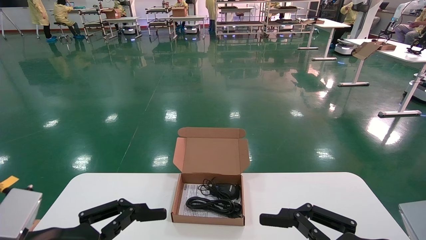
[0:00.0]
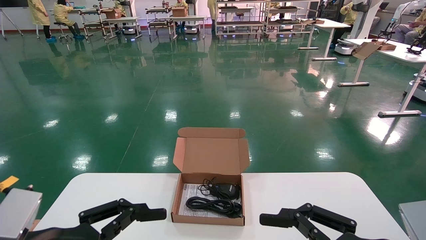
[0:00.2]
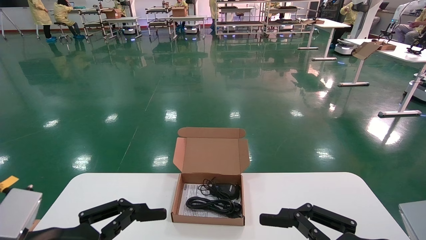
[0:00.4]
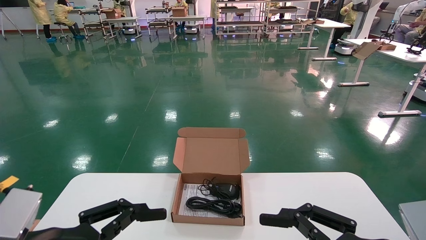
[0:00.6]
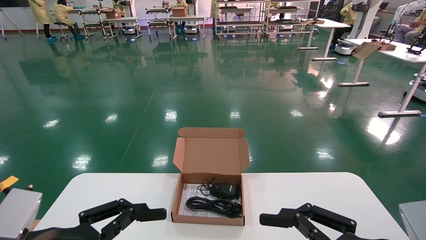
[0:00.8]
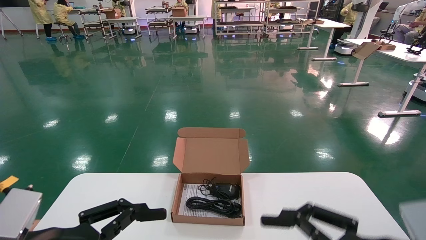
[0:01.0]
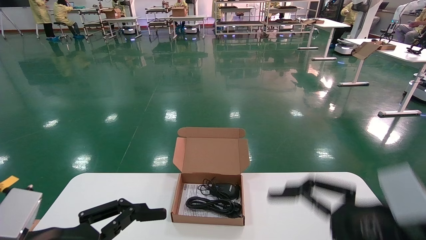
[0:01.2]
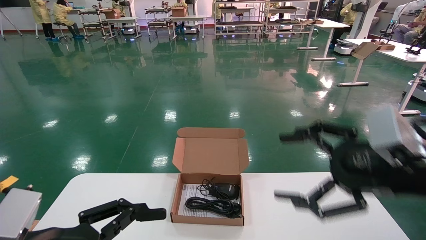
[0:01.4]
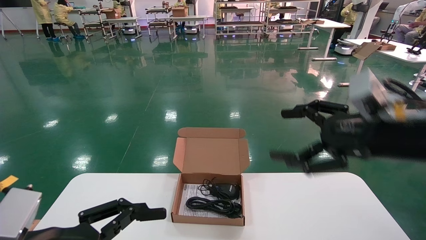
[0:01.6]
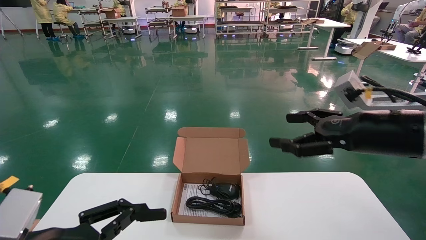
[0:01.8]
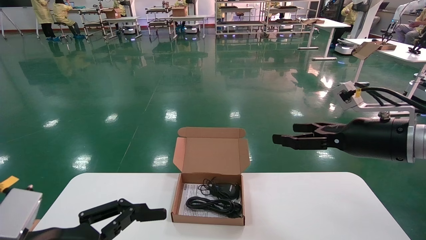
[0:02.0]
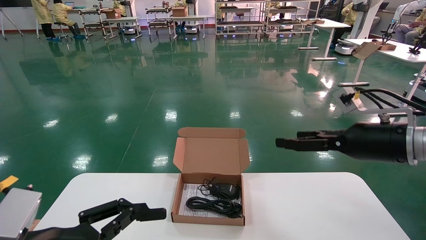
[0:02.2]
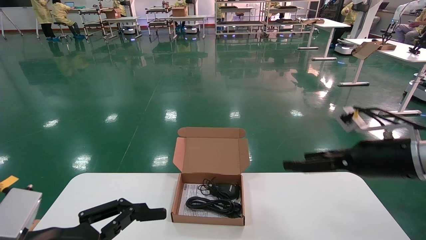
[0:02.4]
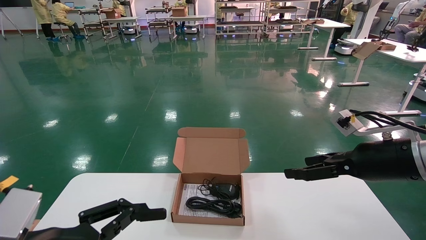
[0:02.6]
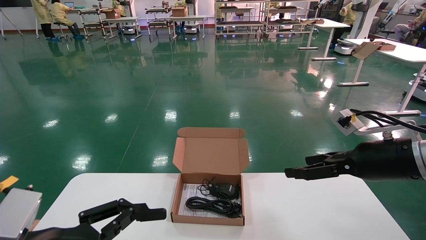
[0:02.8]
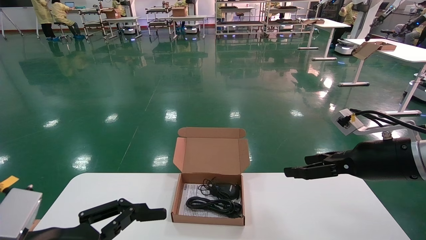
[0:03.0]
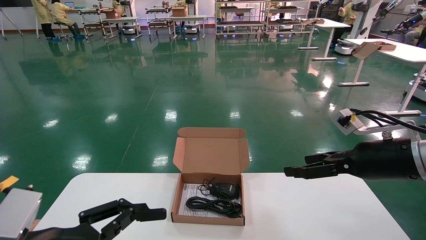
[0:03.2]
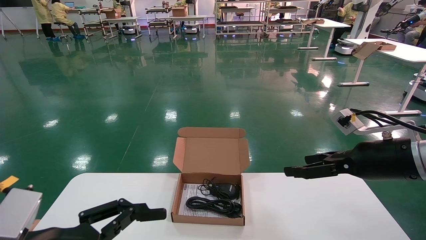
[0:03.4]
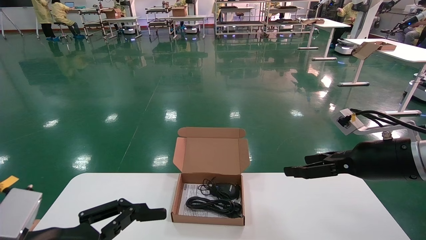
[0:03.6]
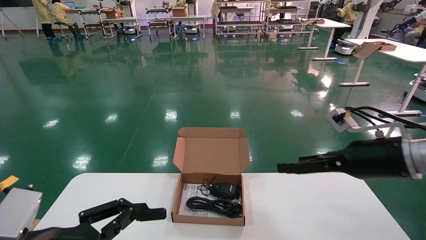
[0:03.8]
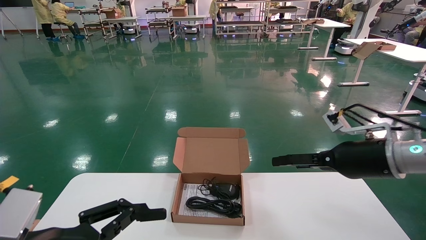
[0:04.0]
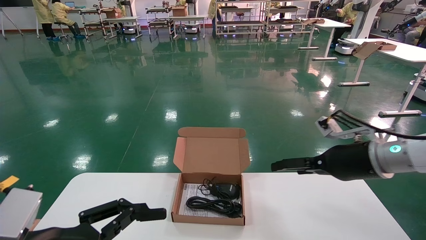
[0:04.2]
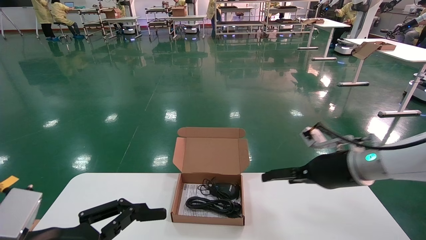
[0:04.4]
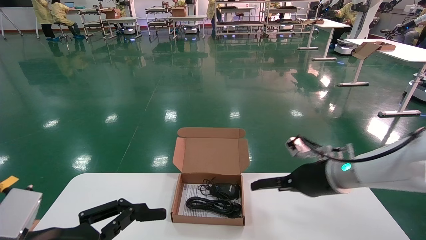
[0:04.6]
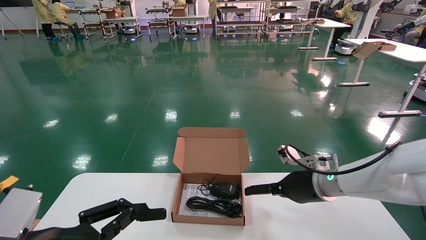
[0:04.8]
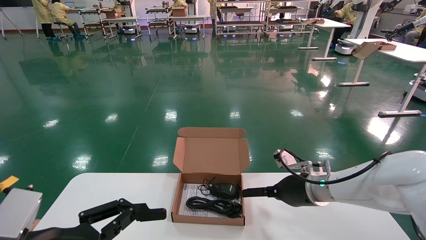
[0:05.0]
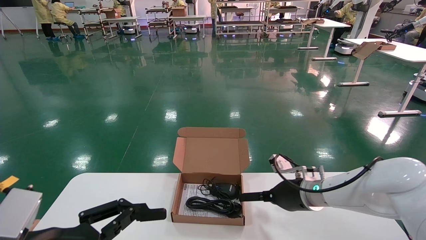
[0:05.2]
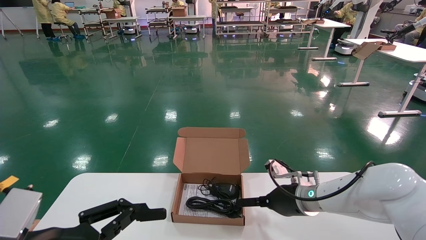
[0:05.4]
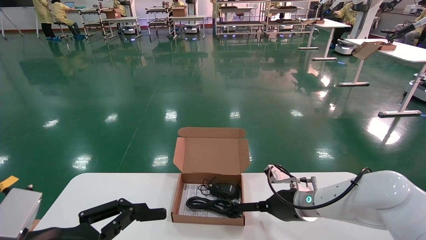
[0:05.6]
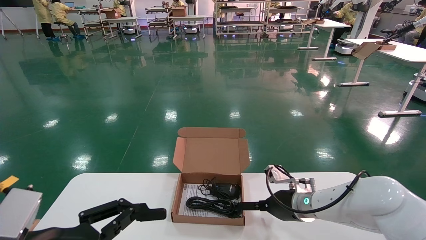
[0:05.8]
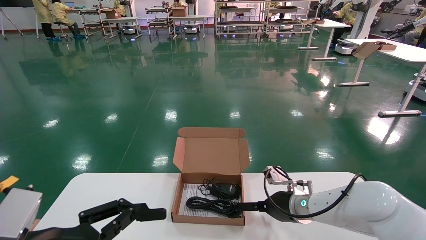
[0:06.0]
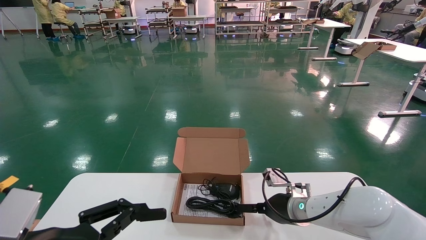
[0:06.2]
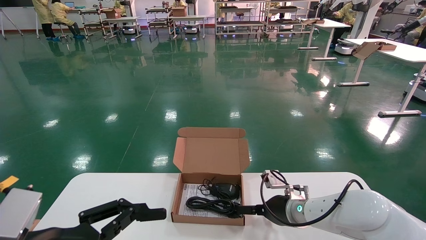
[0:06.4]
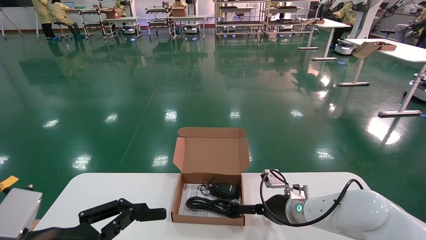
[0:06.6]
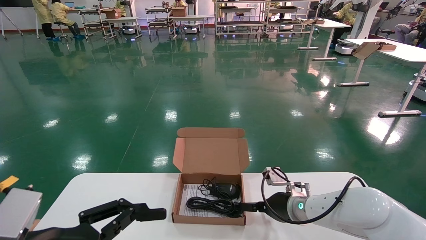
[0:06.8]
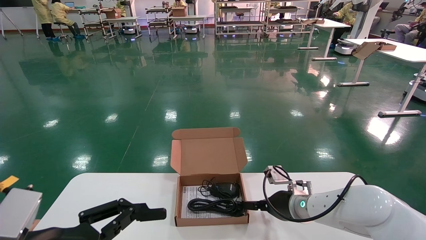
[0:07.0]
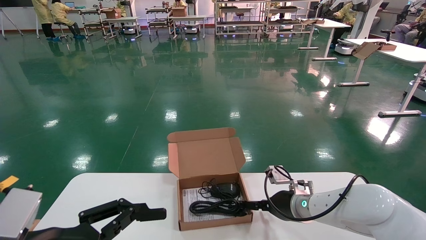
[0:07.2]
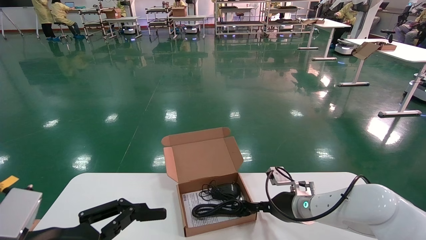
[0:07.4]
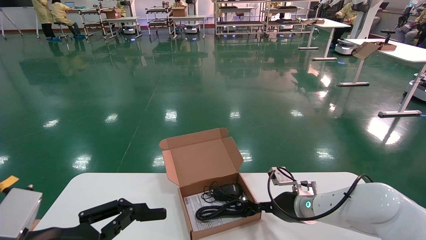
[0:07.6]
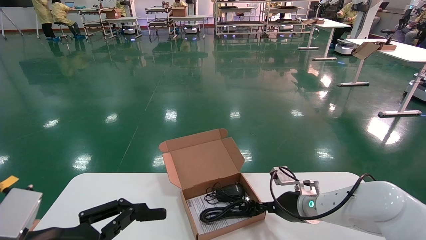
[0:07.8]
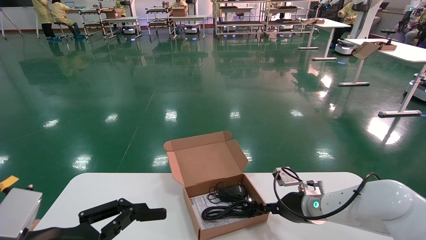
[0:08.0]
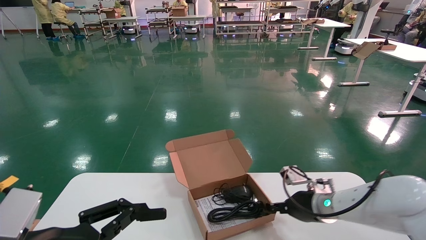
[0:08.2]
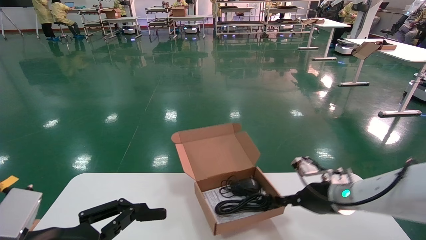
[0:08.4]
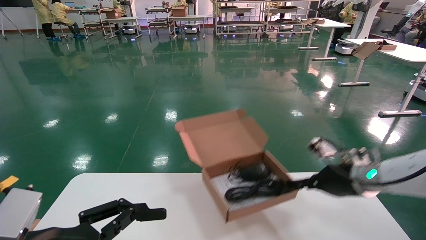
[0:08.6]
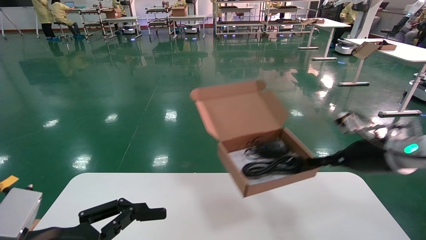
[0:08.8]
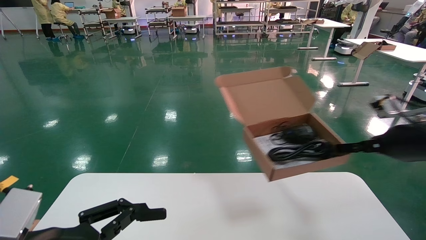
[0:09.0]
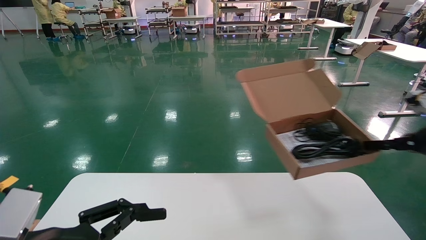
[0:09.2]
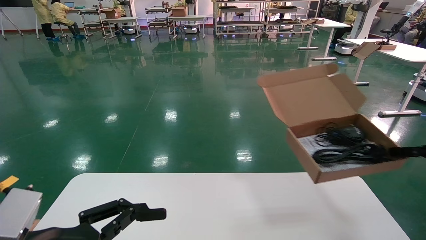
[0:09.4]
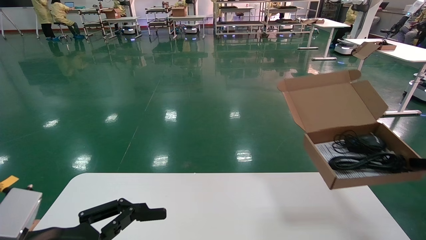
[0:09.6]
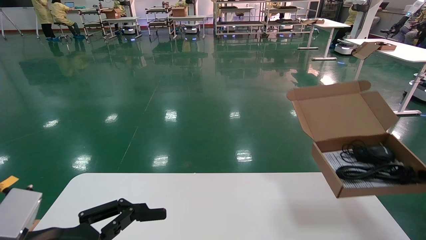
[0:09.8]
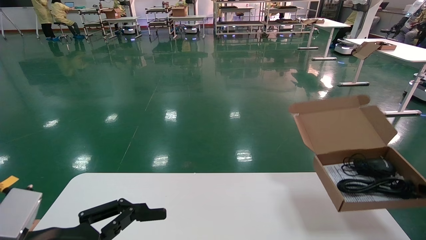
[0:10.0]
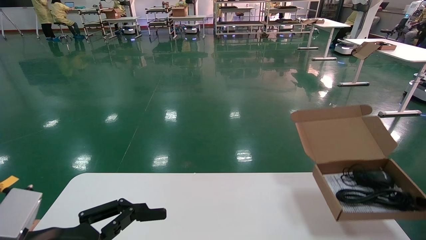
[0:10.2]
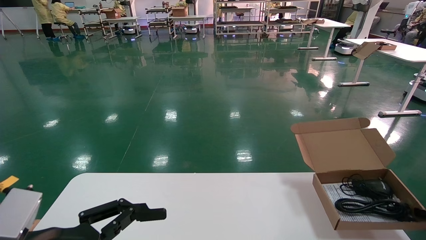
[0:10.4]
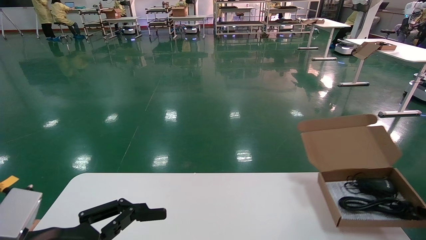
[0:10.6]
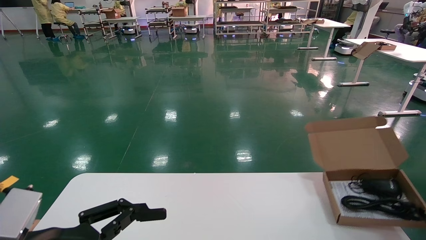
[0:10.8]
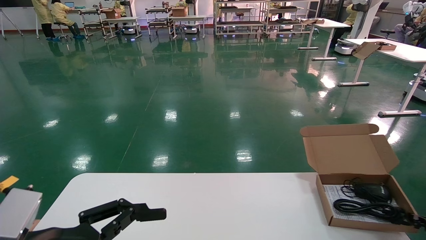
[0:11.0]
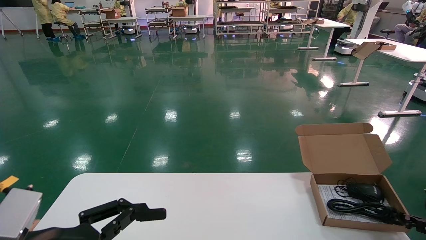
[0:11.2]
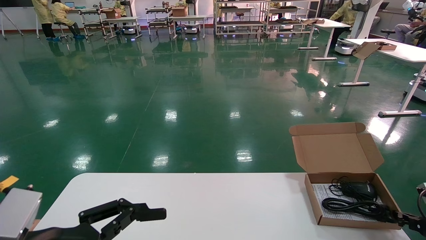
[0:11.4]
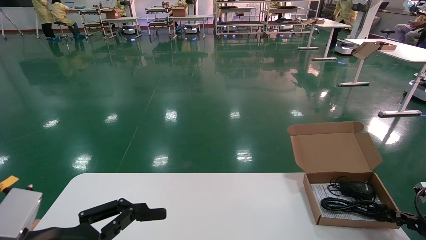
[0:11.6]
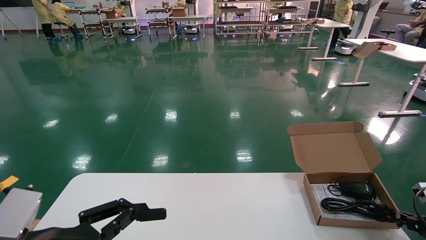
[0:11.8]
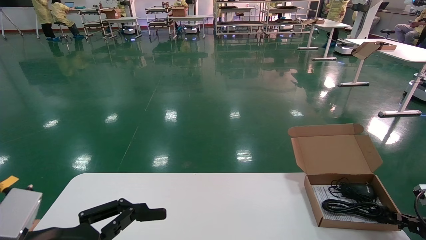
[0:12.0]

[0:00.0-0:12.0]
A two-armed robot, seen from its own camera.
Task of the whole recording: move the position of the storage box with accessories on the table.
Step, 0:01.4 to 0:07.8: Grab and pick up the open mouse box from the accessory packaging area.
0:00.0 to 0:01.6: The right gripper heads upward and forward, covering roughly 15 cm.
0:01.6 to 0:03.0: The right gripper moves forward, about 5 cm.
0:03.0 to 0:04.4: The right gripper is displaced to the left and forward by roughly 10 cm.
0:04.4 to 0:06.0: The right gripper shifts roughly 15 cm downward, to the left and forward.
0:06.0 to 0:07.6: The right gripper closes.
0:07.6 to 0:09.0: The right gripper shifts about 30 cm to the right, upward and backward.
0:09.0 to 0:10.4: The right gripper travels downward and to the right by some 20 cm.
0:10.4 to 0:12.0: The right gripper travels downward by some 5 cm.

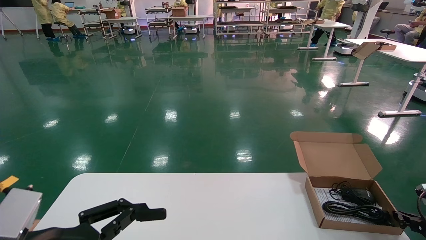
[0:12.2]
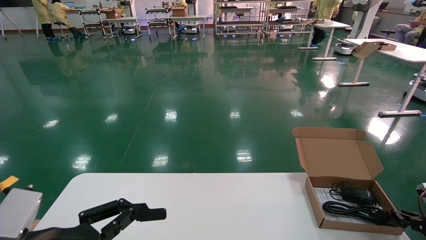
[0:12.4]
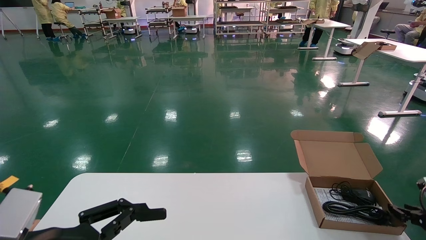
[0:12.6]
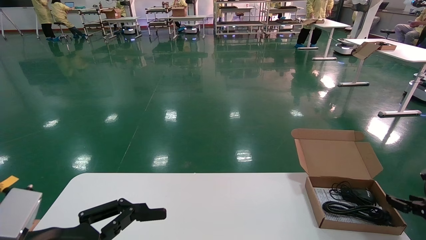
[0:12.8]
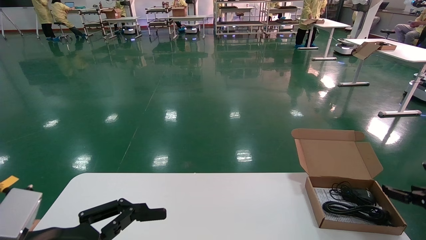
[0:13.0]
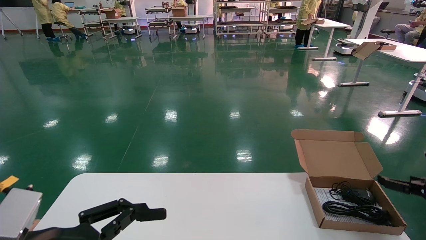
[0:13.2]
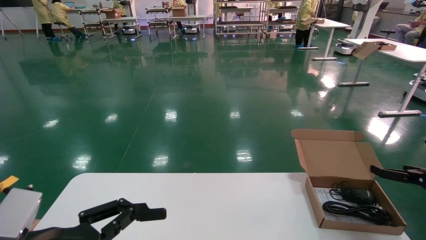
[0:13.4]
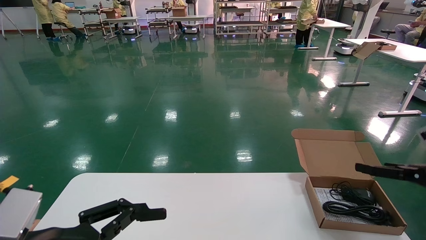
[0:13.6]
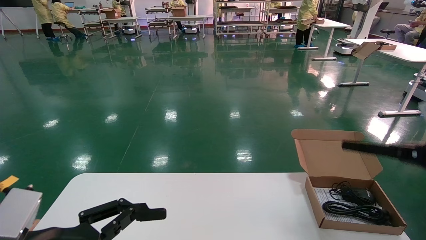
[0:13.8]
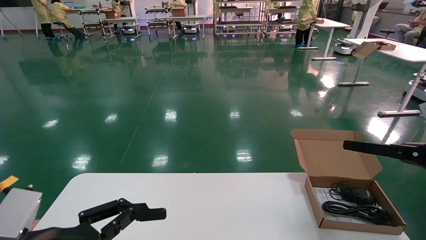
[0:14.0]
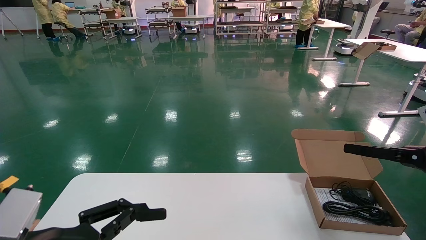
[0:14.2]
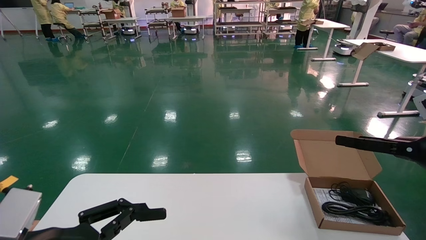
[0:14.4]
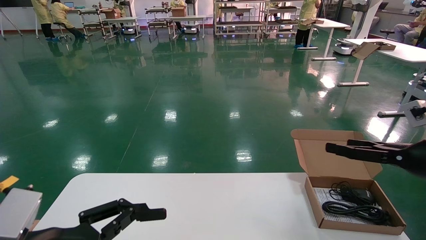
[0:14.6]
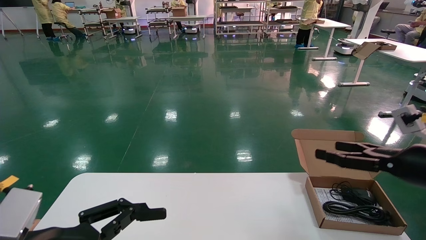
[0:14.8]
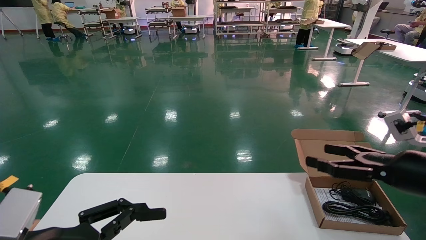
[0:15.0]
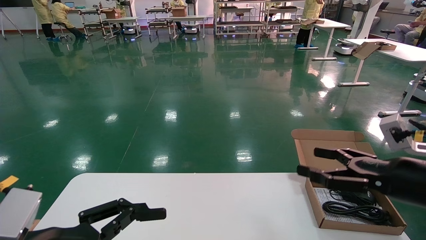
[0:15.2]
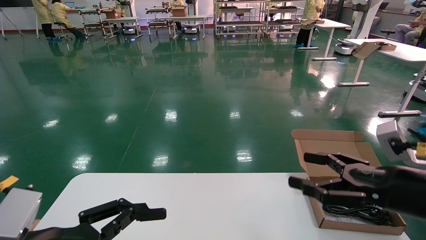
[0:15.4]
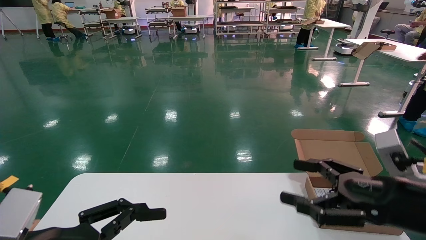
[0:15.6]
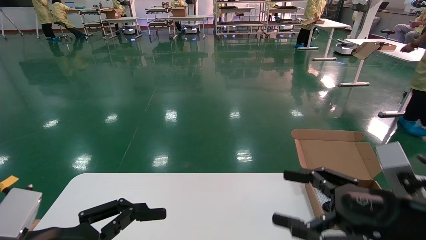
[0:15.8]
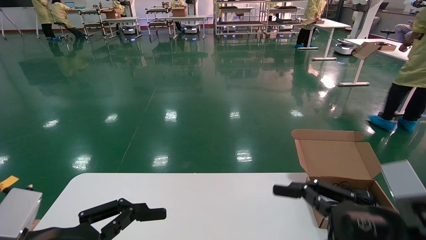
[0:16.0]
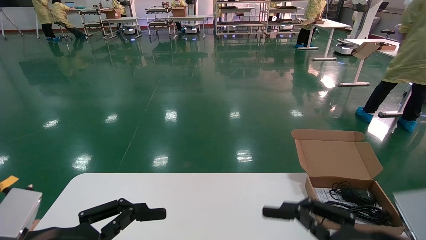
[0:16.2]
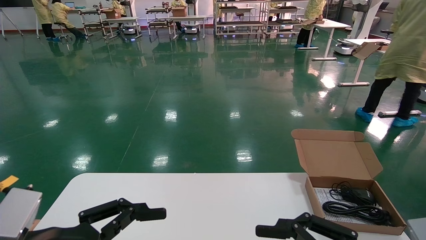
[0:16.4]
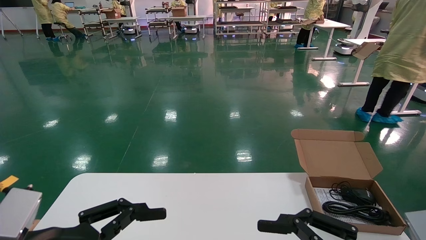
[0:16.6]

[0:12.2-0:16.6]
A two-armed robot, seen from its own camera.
Task of the whole recording: move the position of the storage box with accessories on the table.
0:12.2 to 0:13.6: The right gripper shifts some 15 cm upward, and opens up.
0:13.6 to 0:15.2: The right gripper goes some 15 cm to the left and backward.
0:15.2 to 0:16.6: The right gripper travels backward and to the left by roughly 15 cm.
